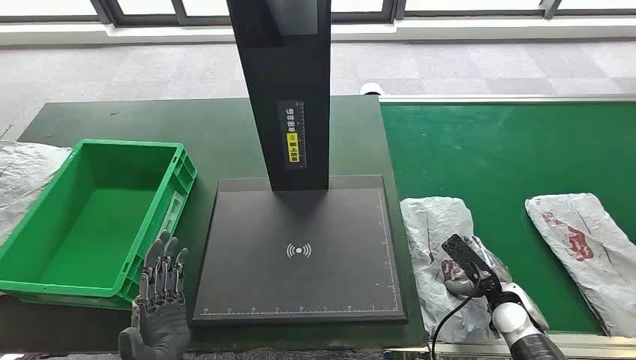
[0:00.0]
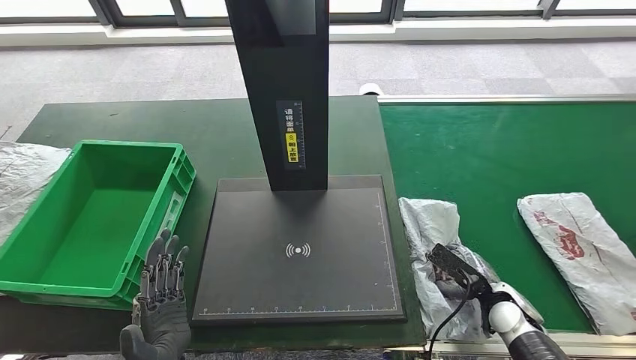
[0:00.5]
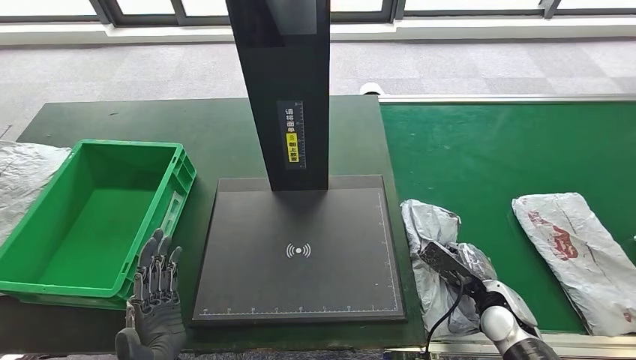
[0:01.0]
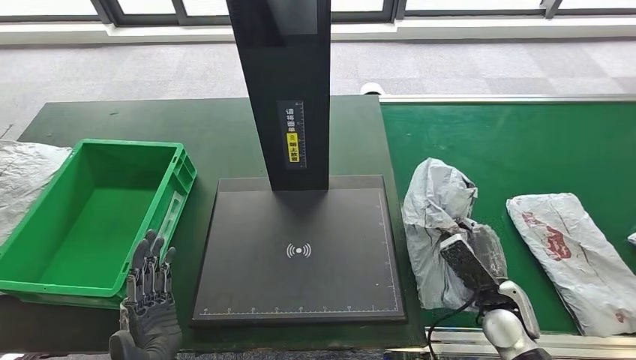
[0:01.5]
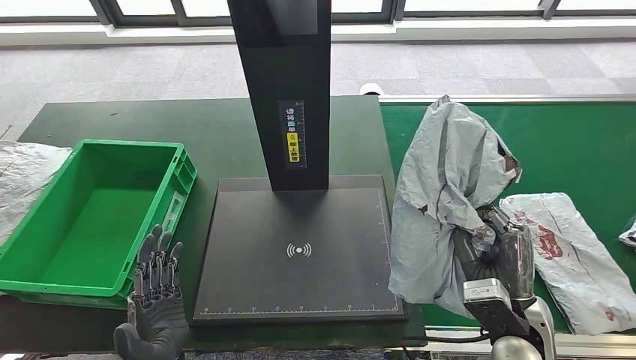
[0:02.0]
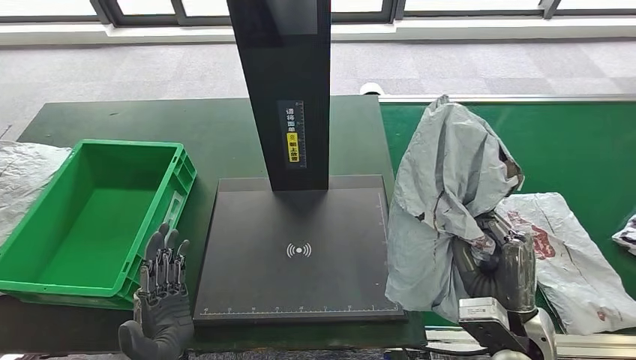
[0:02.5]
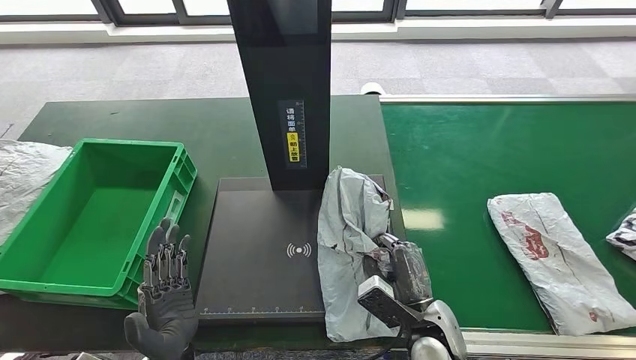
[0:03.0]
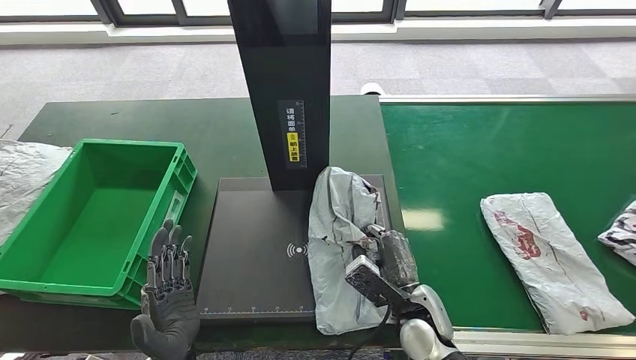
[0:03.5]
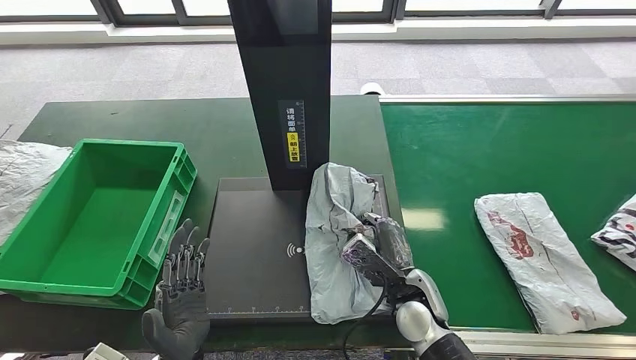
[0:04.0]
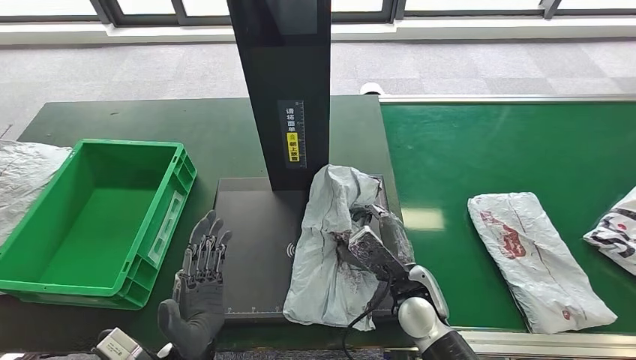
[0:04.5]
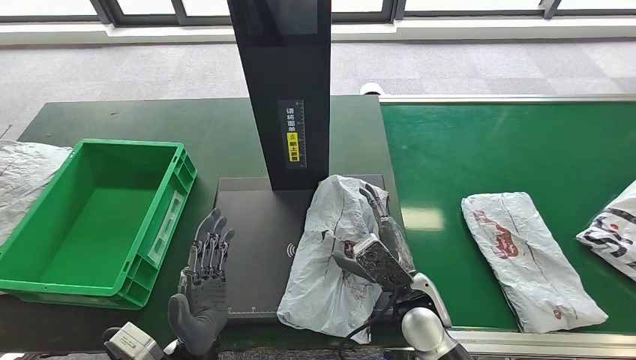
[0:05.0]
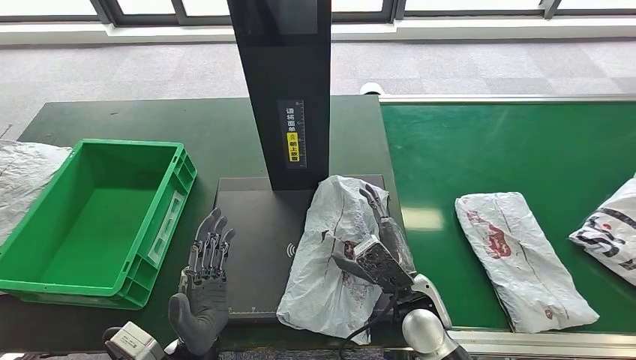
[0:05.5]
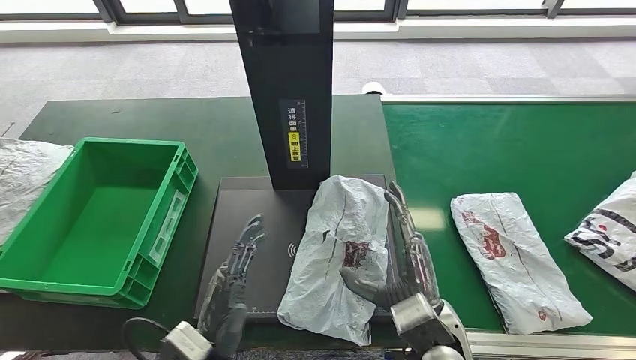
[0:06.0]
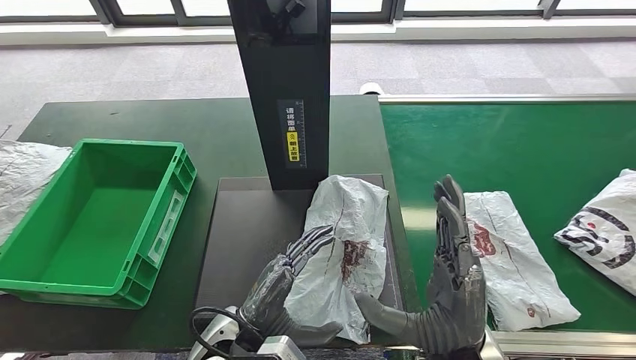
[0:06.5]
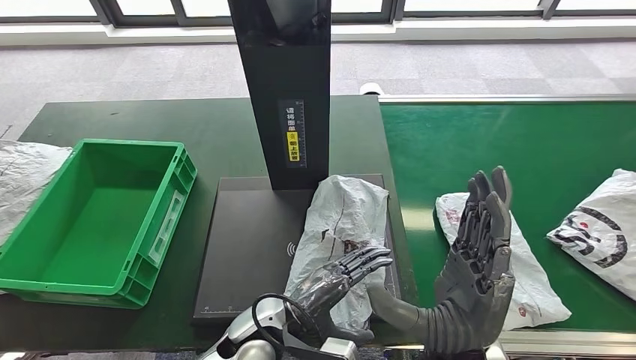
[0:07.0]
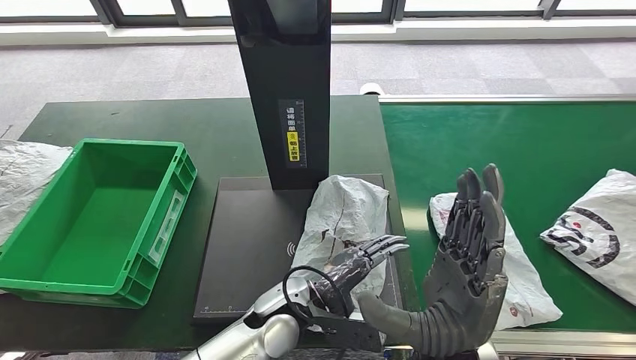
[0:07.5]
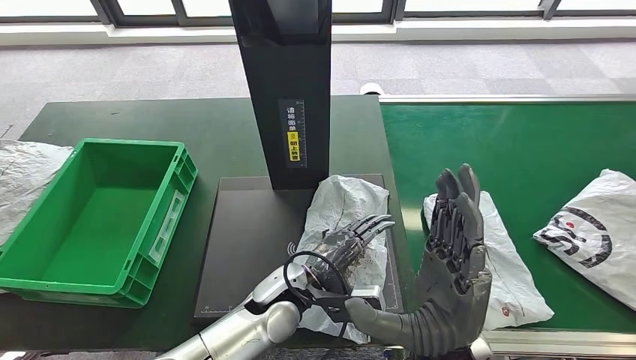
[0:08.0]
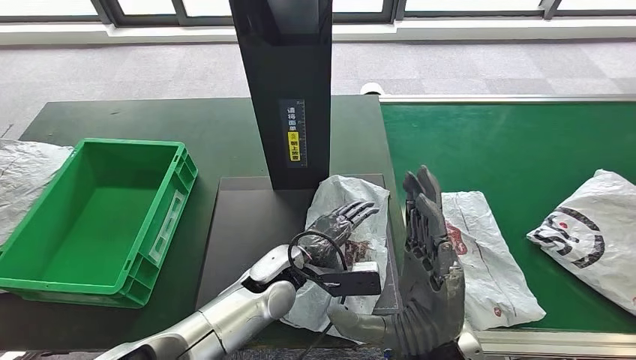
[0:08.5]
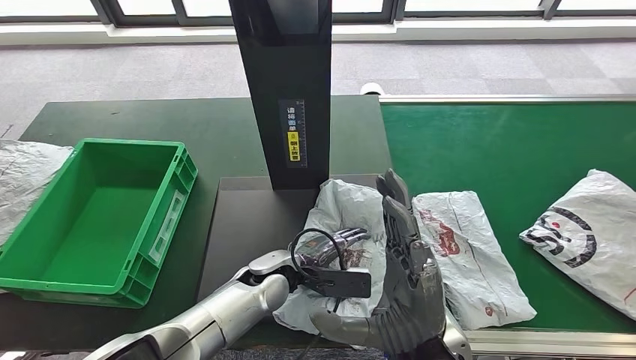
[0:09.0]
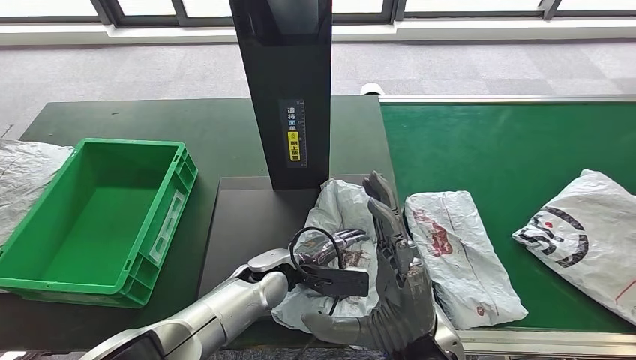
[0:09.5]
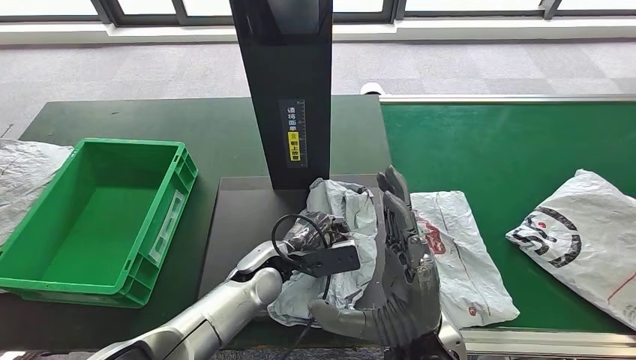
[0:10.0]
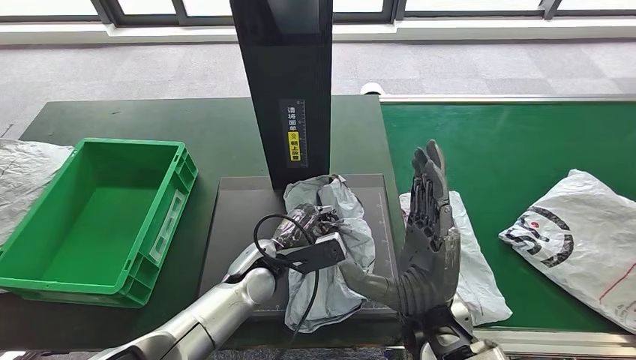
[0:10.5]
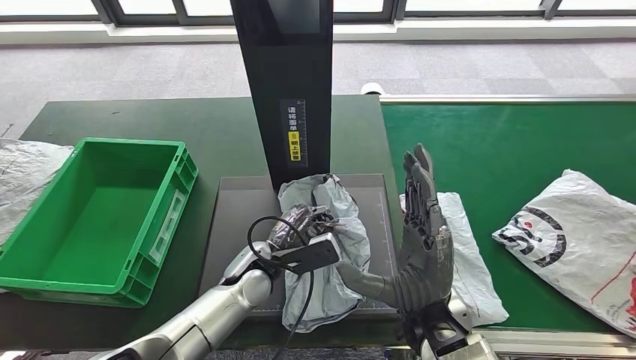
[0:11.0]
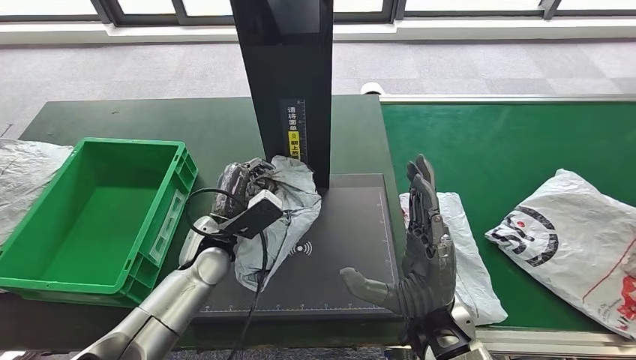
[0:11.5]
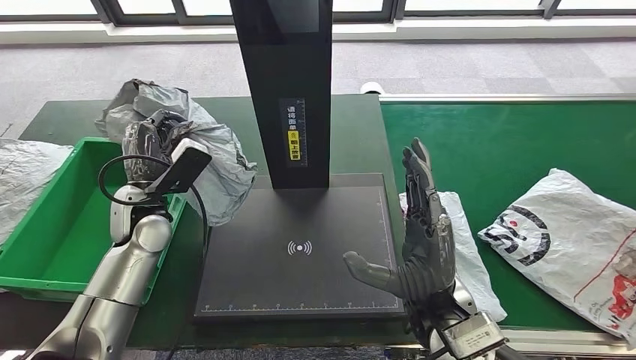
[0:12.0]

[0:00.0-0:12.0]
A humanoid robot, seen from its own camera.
Step, 0:00.0 to 0:02.0: Take the parcel off the conveyor belt.
Step, 0:02.5 to 0:06.0: Place the parcel onto the inbound machine.

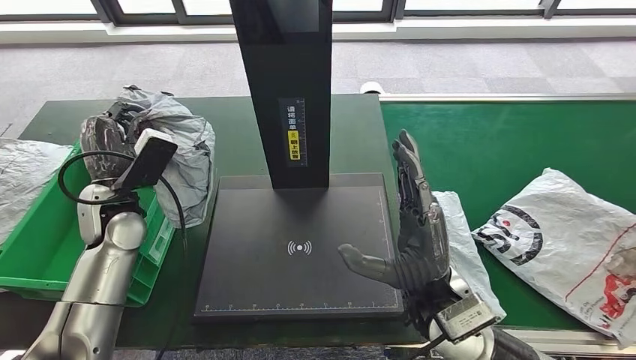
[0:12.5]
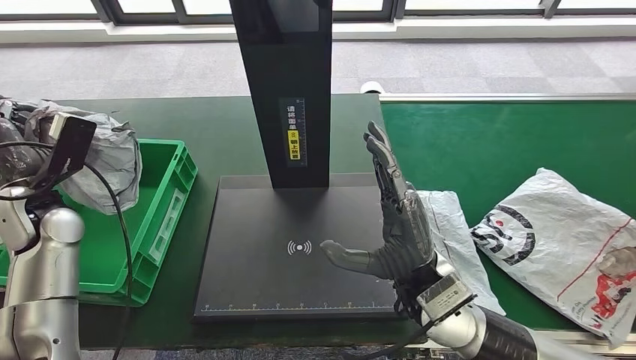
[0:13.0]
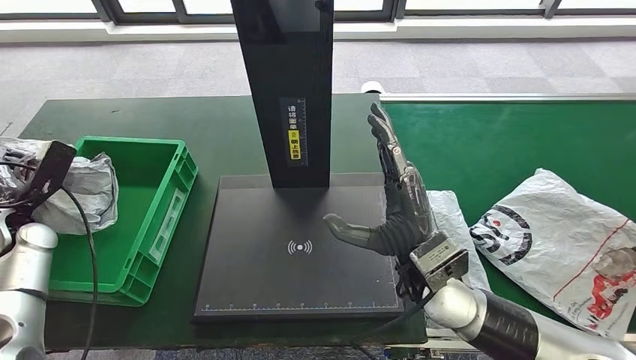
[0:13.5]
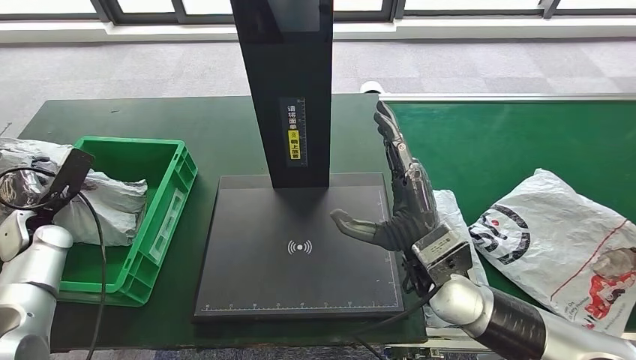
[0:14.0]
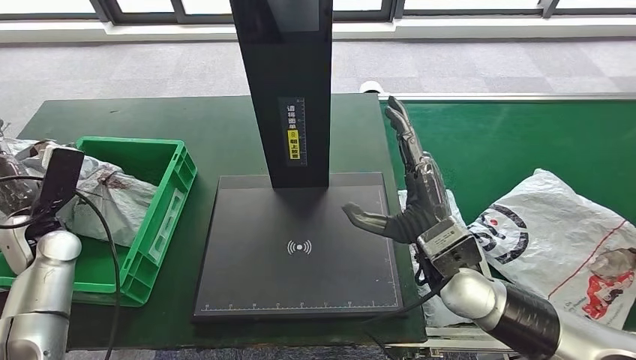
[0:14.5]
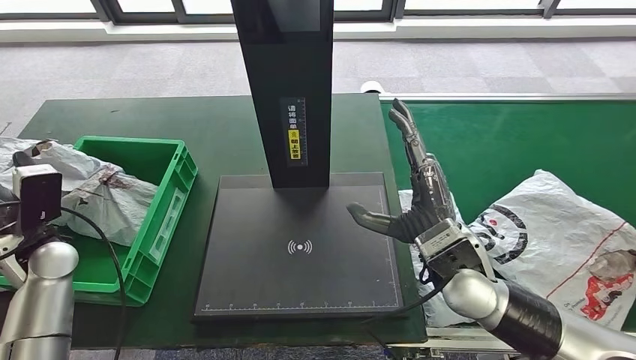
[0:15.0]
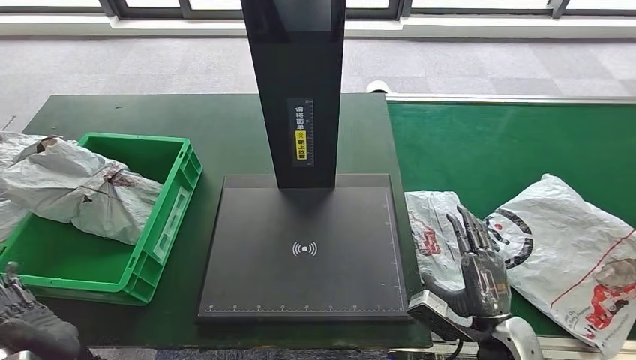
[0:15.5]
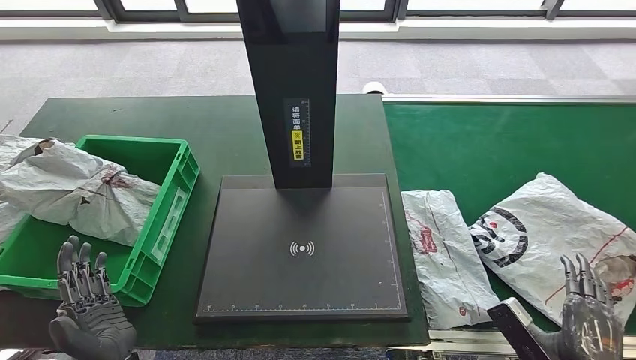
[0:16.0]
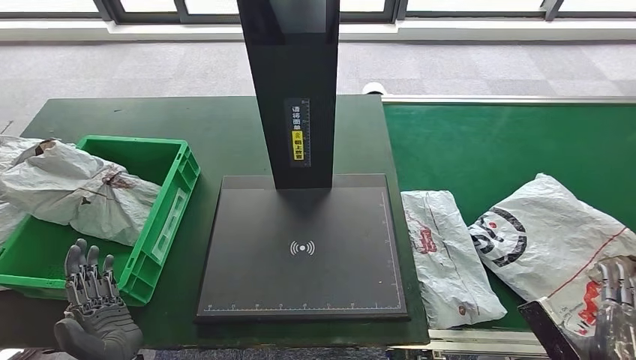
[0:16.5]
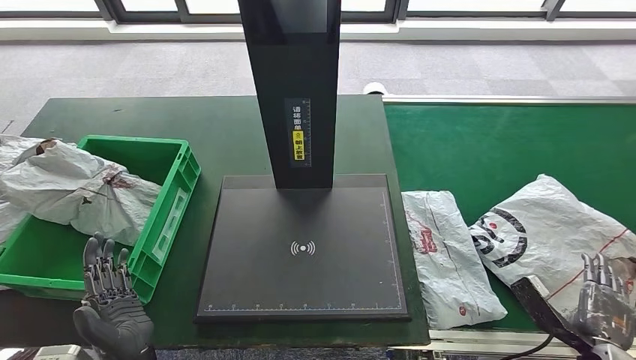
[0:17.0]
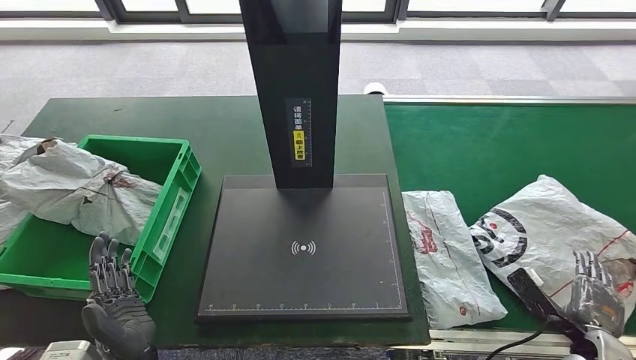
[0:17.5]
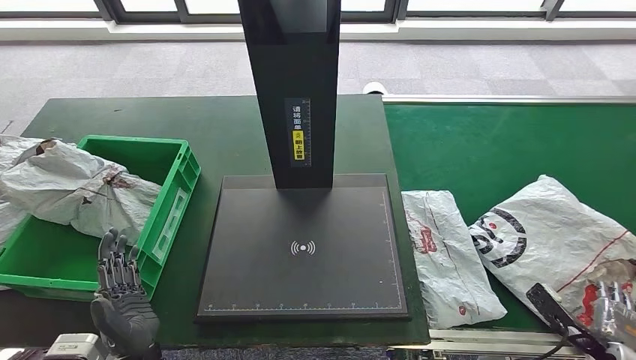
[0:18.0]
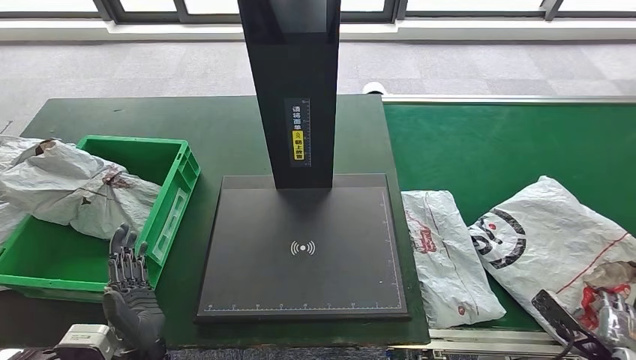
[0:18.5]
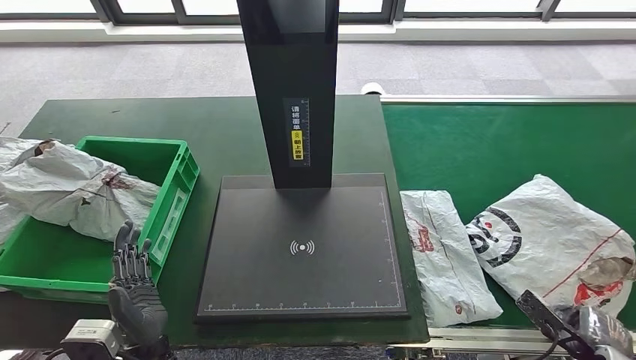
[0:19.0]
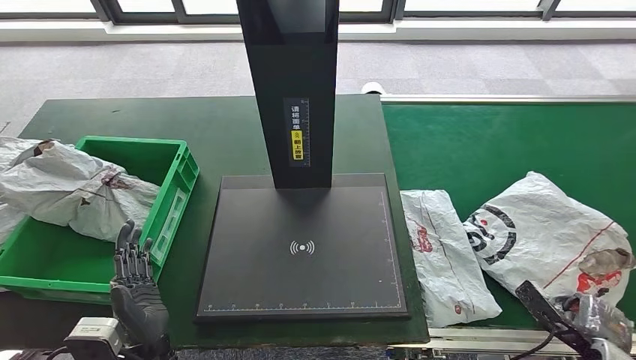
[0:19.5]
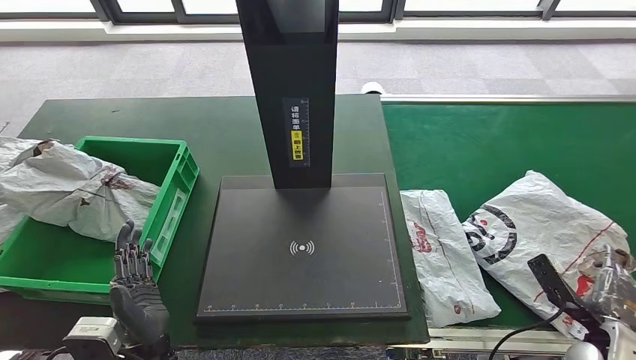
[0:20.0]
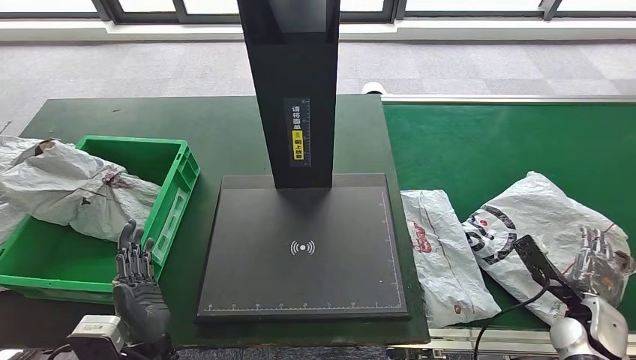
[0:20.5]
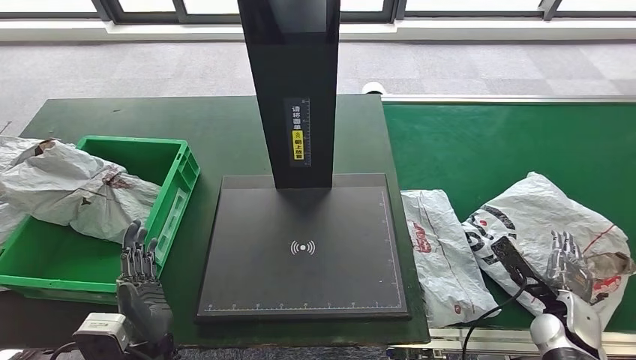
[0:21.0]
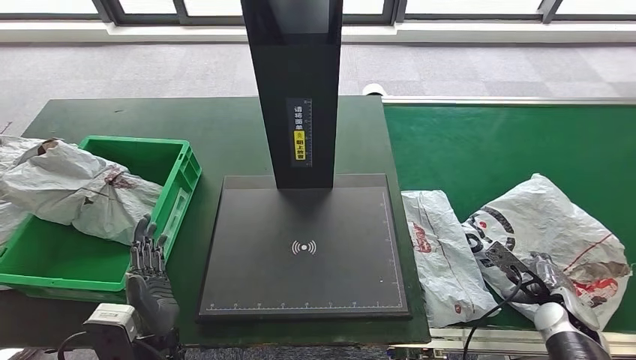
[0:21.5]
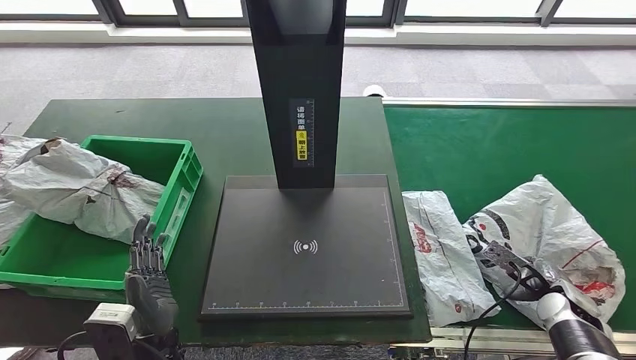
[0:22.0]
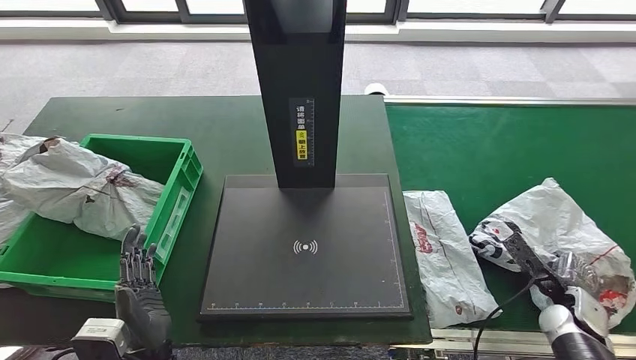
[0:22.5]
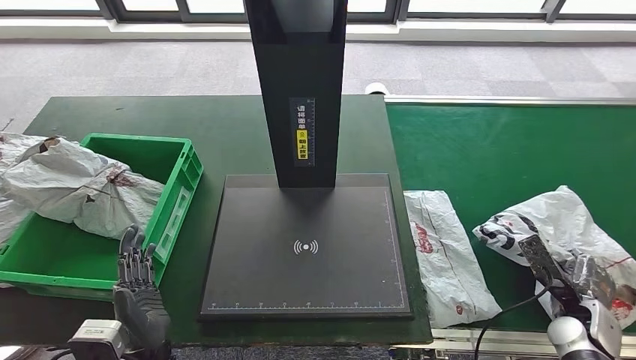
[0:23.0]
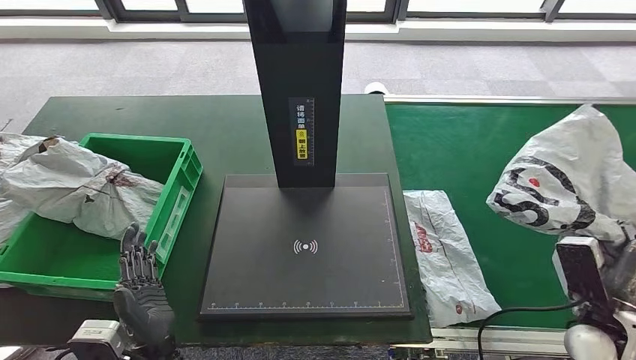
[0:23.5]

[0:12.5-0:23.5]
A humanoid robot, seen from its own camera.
Step, 0:12.5 to 0:16.0: Put the parcel inside the courier box.
0:16.0 to 0:18.0: The right hand travels to the right and downward by roughly 10 cm.
0:18.0 to 0:20.0: There are only small adjustments of the hands.
0:20.0 to 0:21.5: The right hand goes roughly 5 cm forward.
